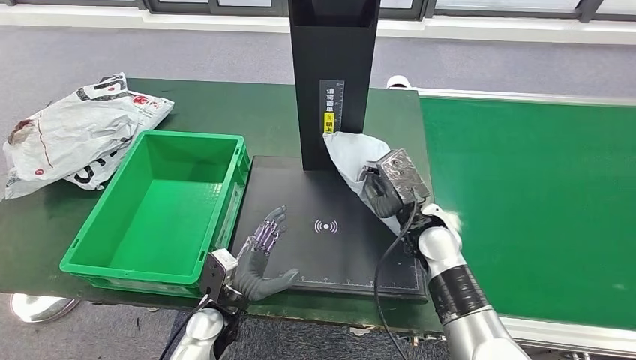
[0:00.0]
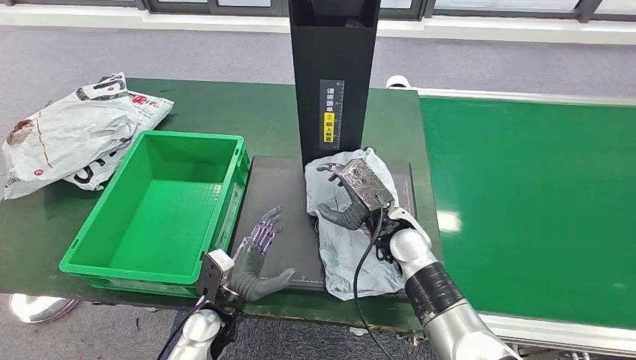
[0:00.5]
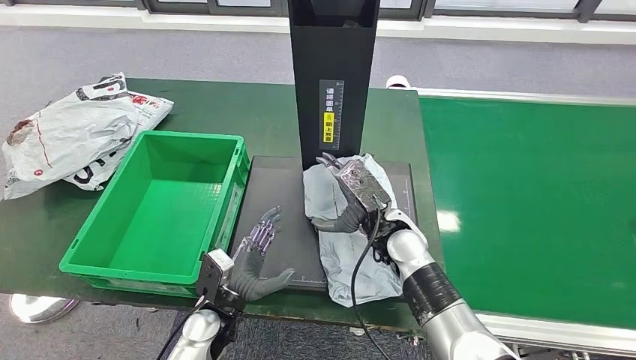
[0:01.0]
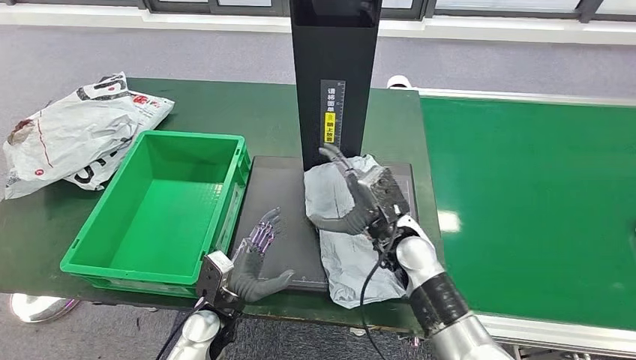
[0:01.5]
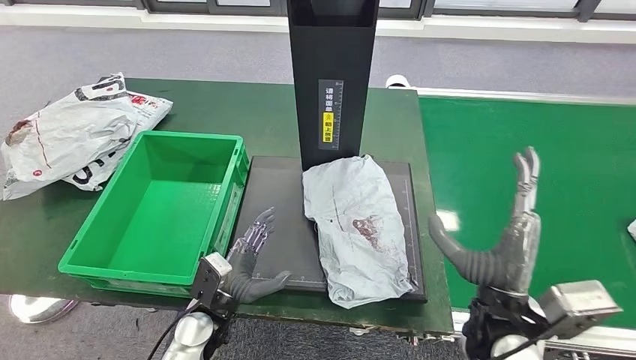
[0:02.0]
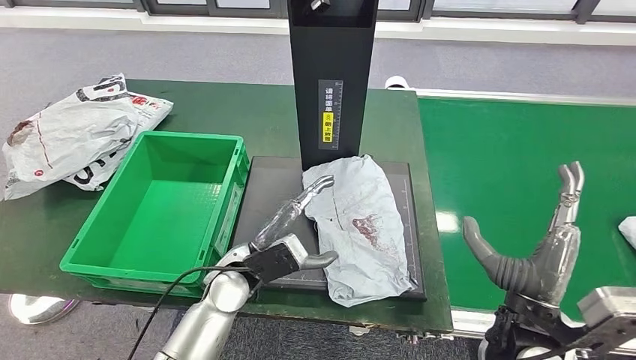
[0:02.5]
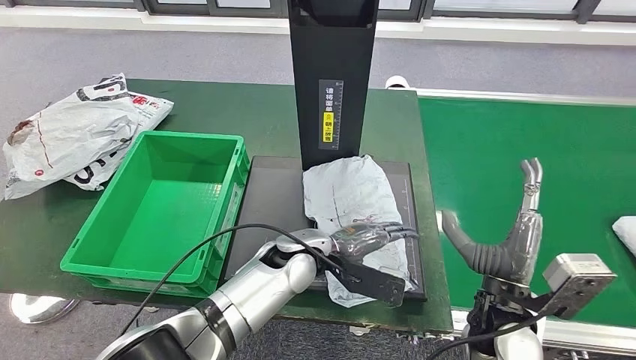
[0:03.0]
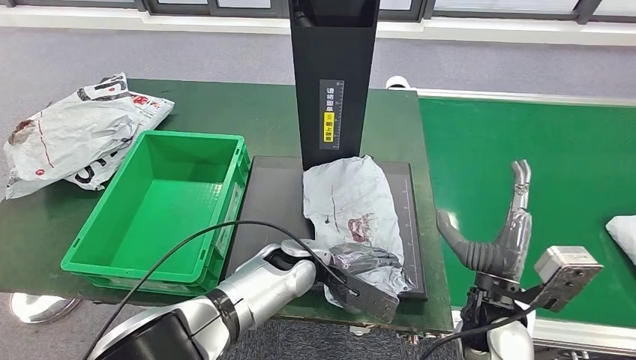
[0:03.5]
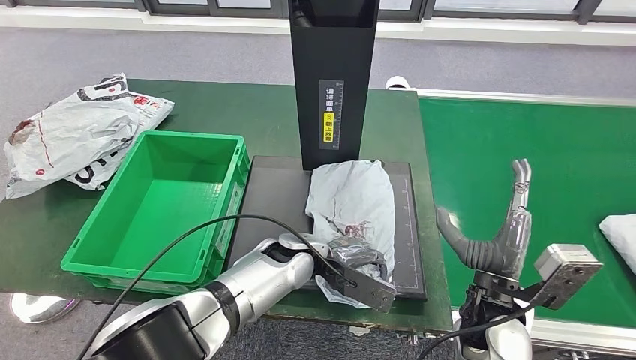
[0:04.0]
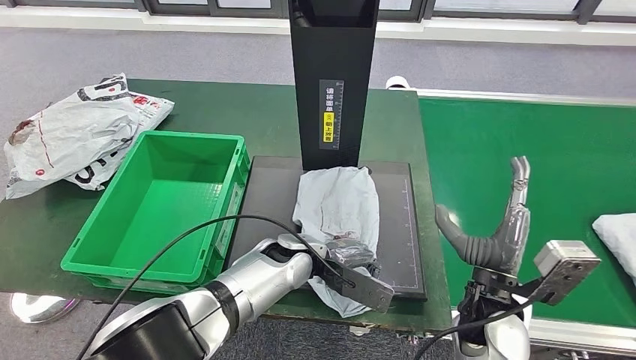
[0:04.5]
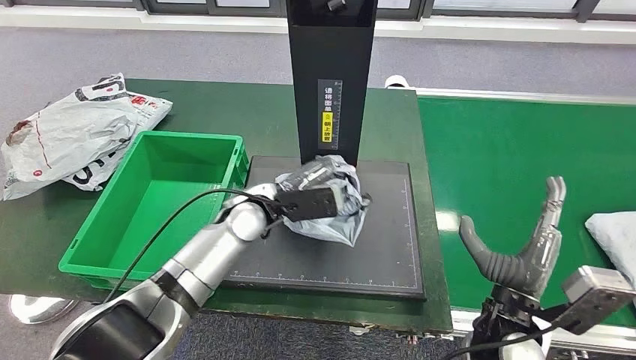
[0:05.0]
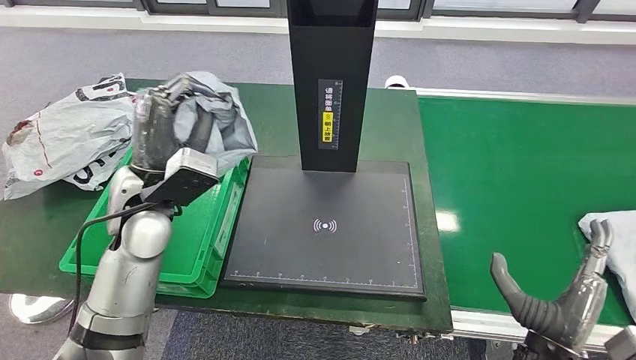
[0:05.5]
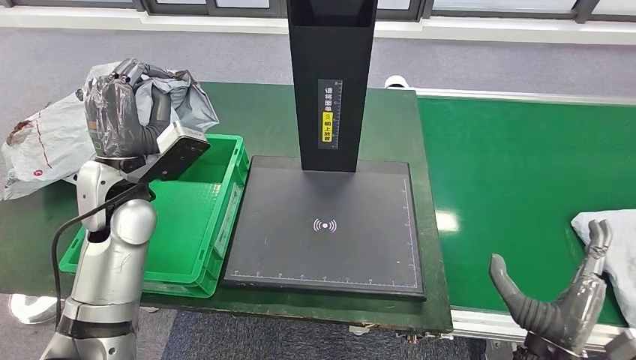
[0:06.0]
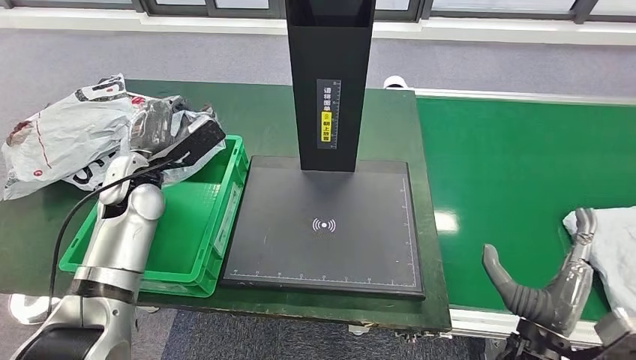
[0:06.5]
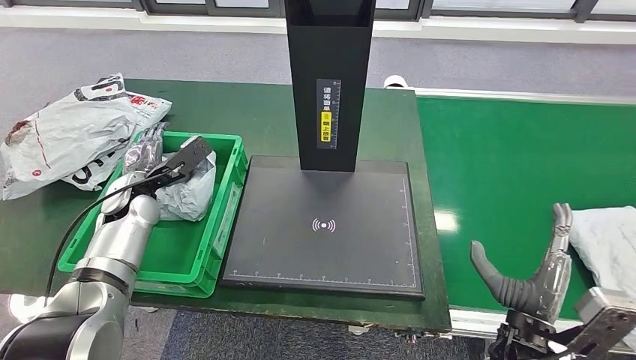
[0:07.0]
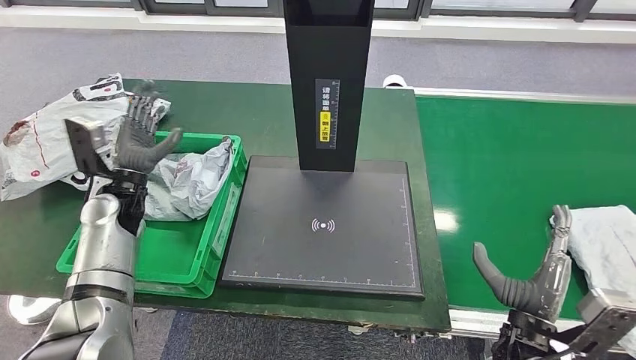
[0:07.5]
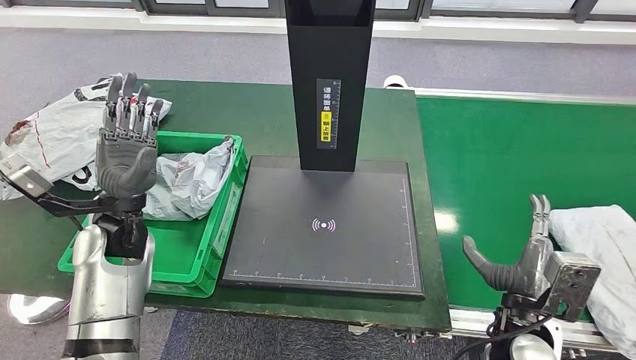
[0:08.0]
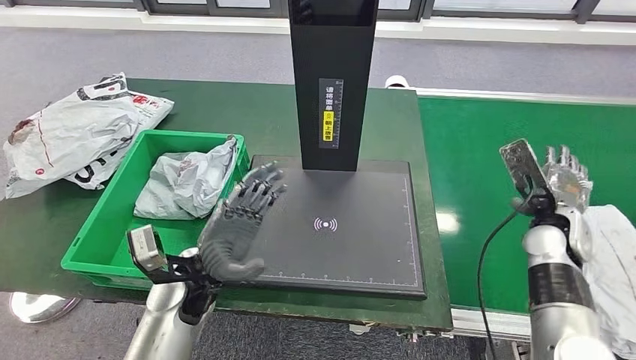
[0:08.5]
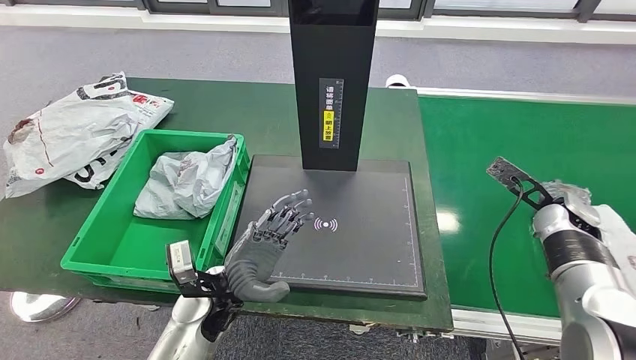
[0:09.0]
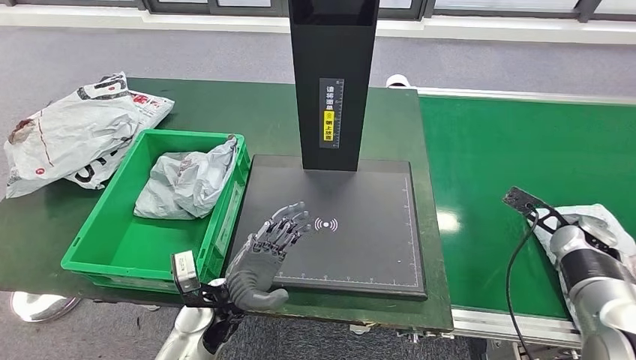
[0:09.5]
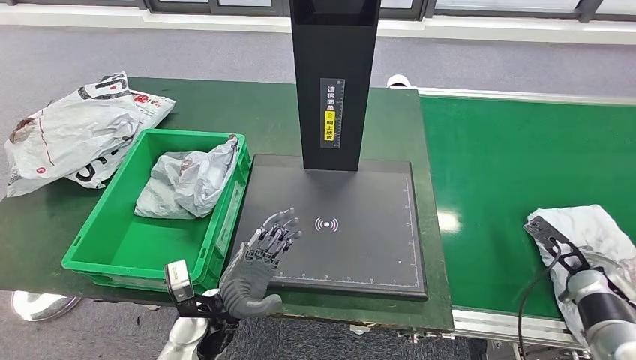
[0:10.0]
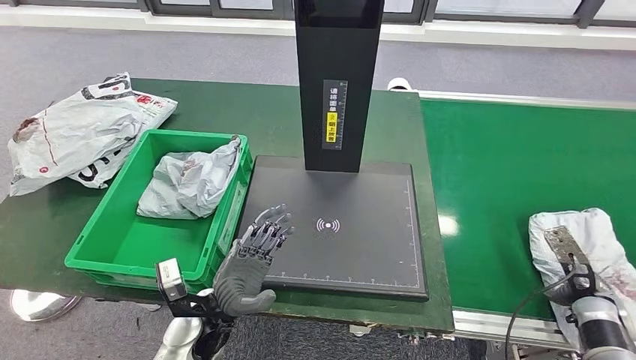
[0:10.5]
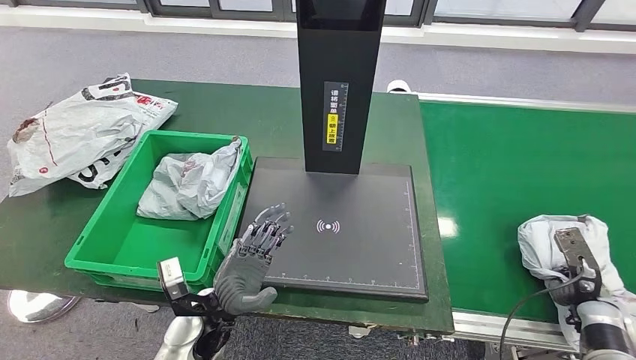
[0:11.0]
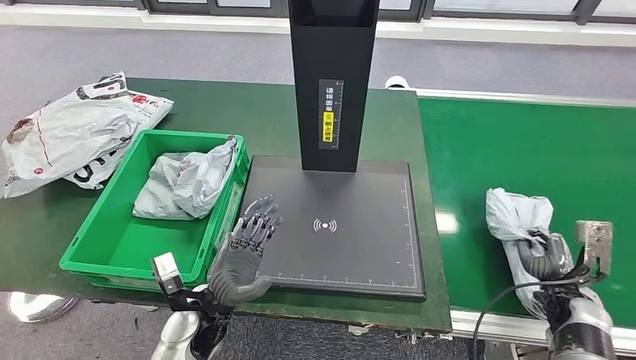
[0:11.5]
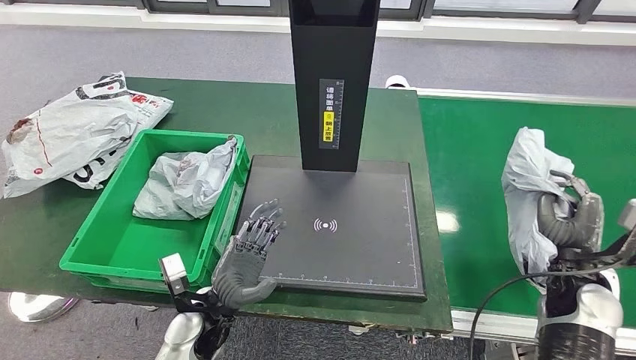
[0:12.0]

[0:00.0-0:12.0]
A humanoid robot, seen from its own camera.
Step, 0:00.0 to 0:01.5: Place the parcel onto the inbound machine.
Step, 0:02.0 to 0:05.0: Pick up the parcel from the inbound machine.
Step, 0:05.5 to 0:07.0: Put the parcel inside the courier box.
Step, 0:07.5 to 0:12.0: Pick up the parcel from the conveyor belt.
0:00.0 to 0:02.0: The right hand goes about 15 cm backward.
0:10.0 to 0:12.0: The right hand travels to the left and upward by some 15 cm.

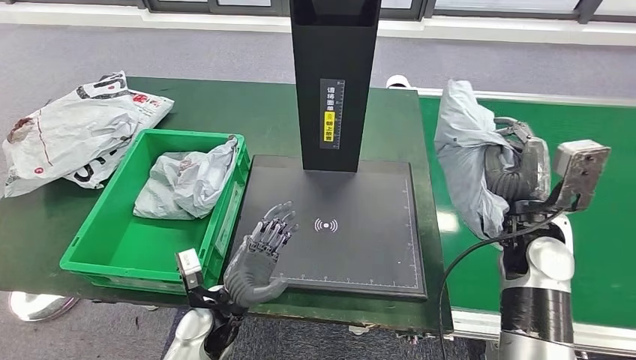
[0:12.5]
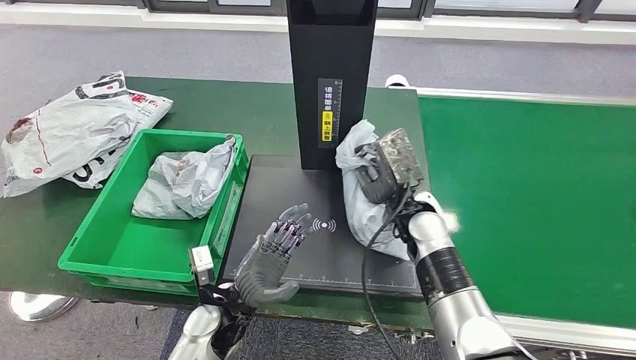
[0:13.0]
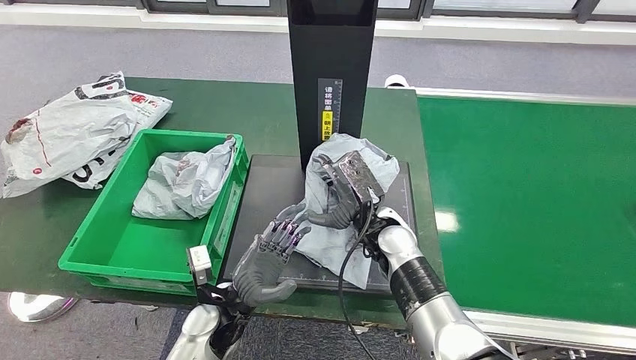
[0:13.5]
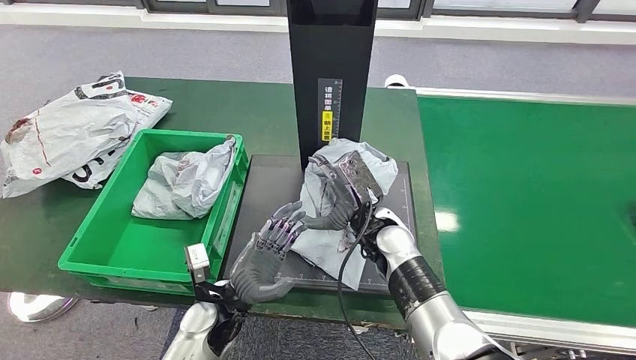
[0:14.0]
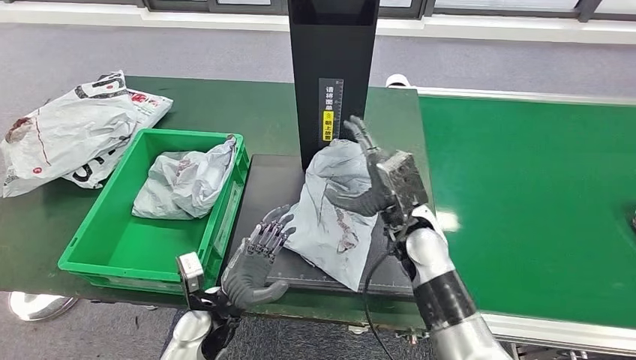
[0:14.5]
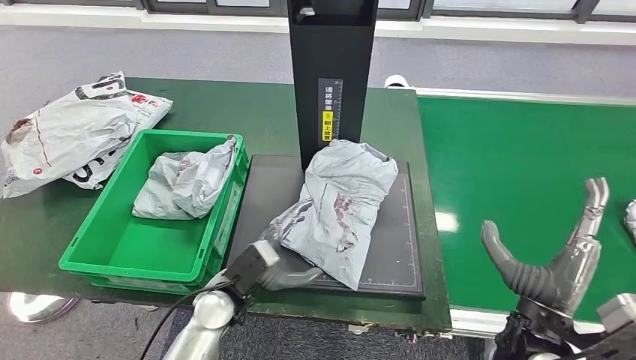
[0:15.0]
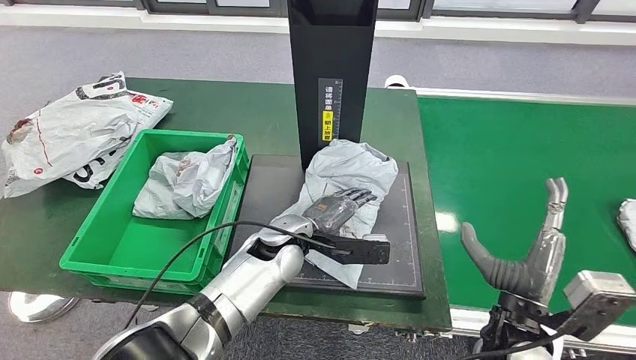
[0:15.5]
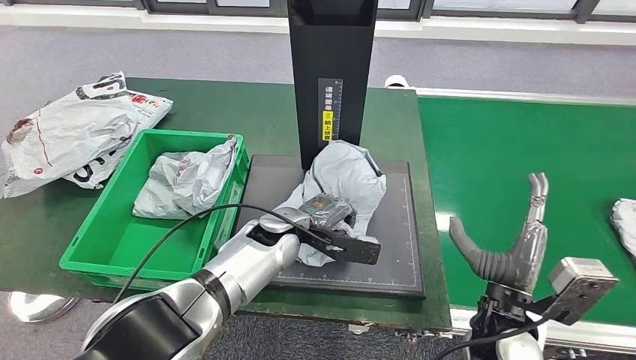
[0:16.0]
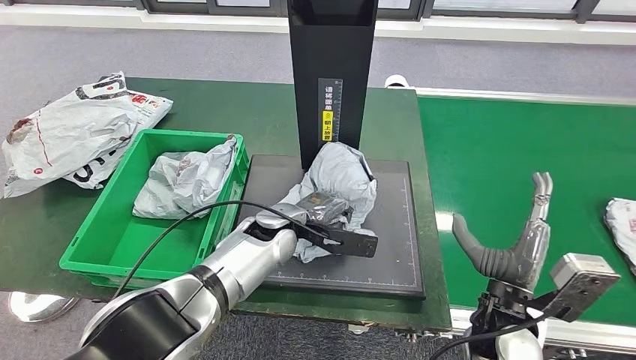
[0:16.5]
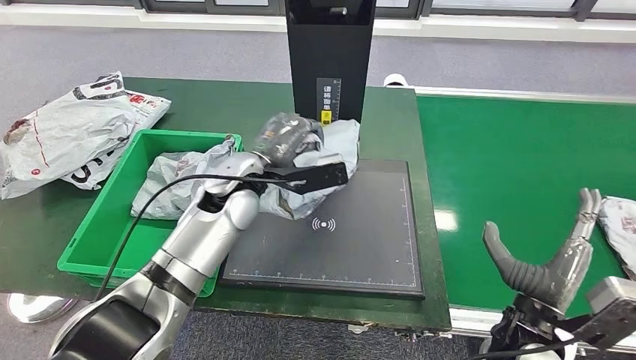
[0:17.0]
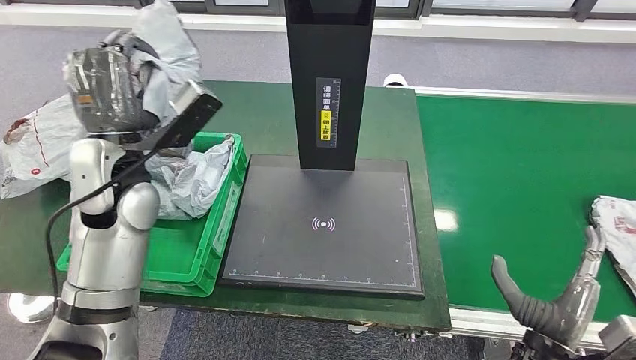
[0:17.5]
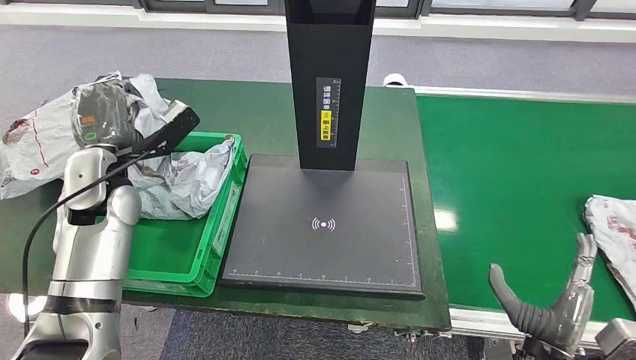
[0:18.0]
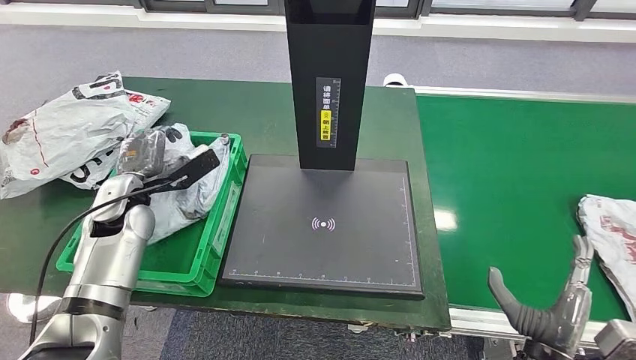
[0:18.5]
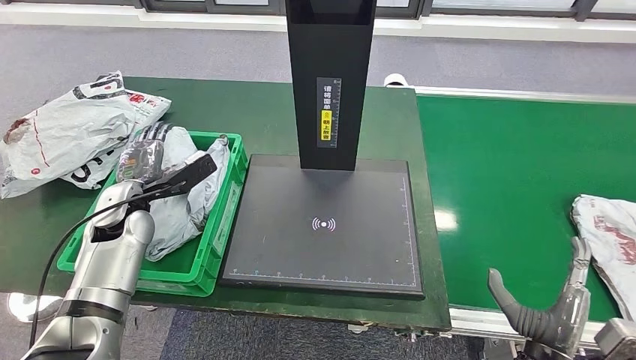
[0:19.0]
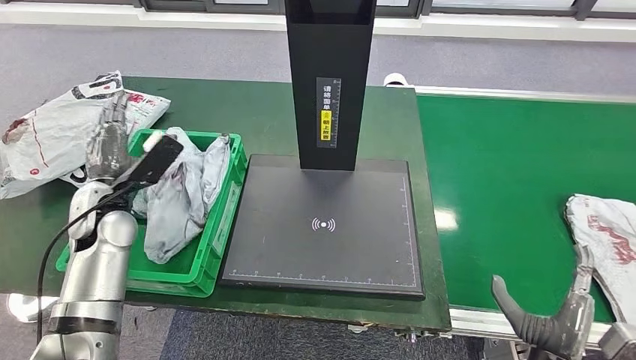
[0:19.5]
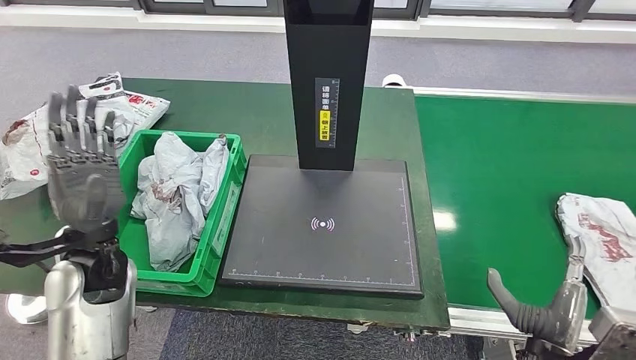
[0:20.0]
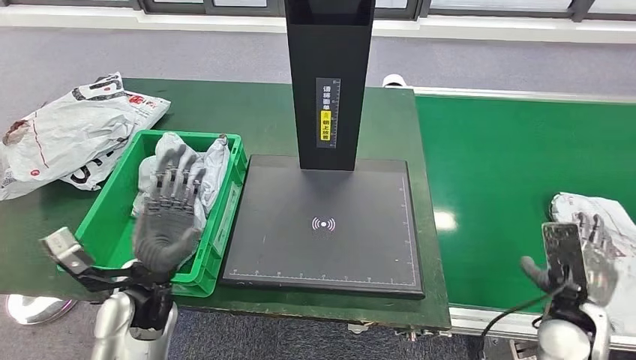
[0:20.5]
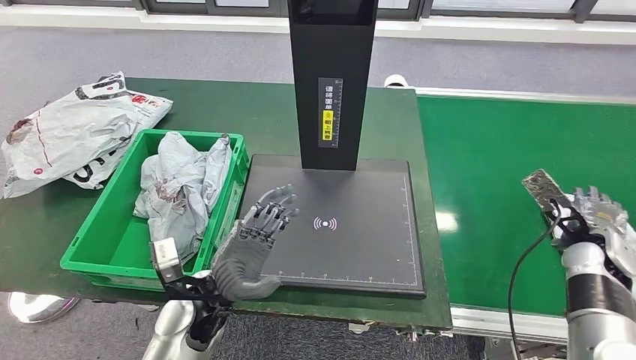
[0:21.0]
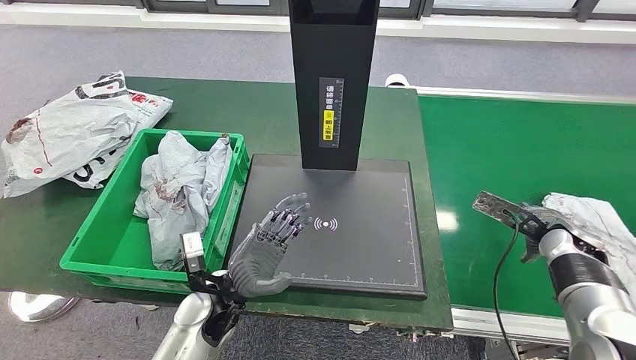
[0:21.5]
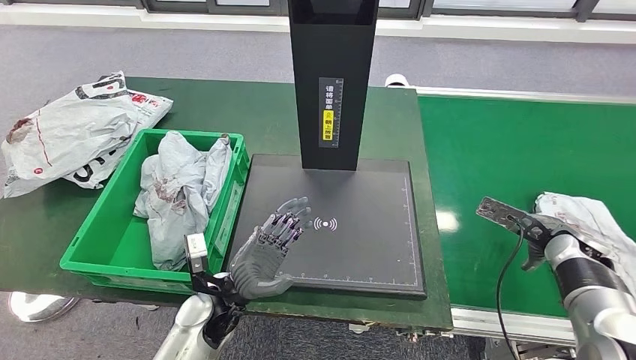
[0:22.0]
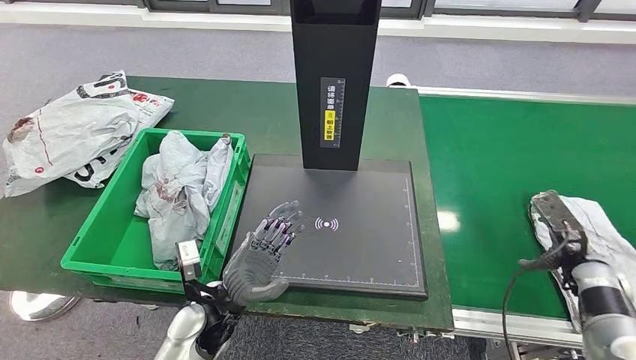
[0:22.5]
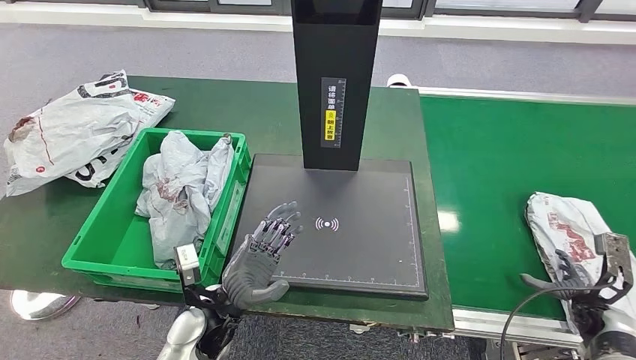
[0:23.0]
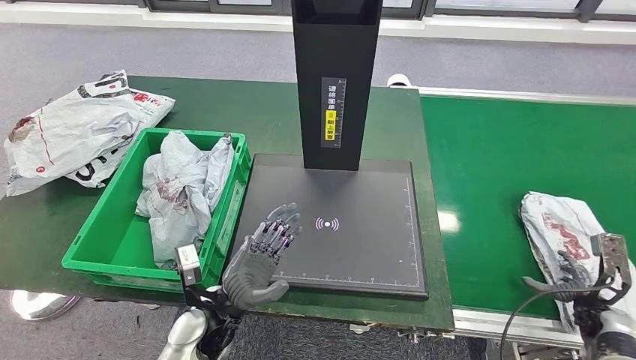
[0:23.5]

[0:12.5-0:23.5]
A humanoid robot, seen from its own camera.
Step, 0:12.5 to 0:14.0: Place the parcel onto the inbound machine.
Step, 0:14.5 to 0:16.5: Pick up the parcel from the inbound machine.
Step, 0:17.0 to 0:18.5: Place the parcel into the delivery box.
0:21.5 to 0:23.5: The right hand travels backward, downward and to the right by roughly 15 cm.
